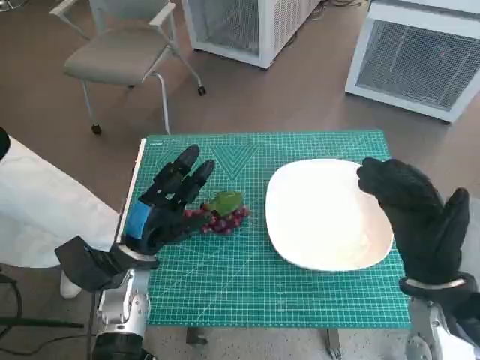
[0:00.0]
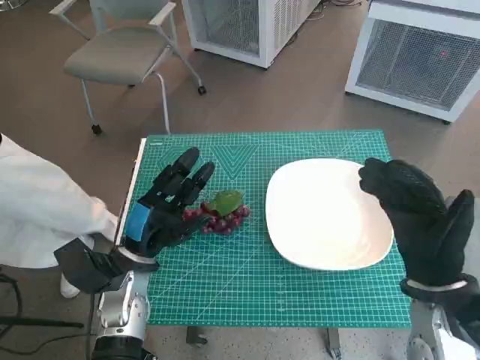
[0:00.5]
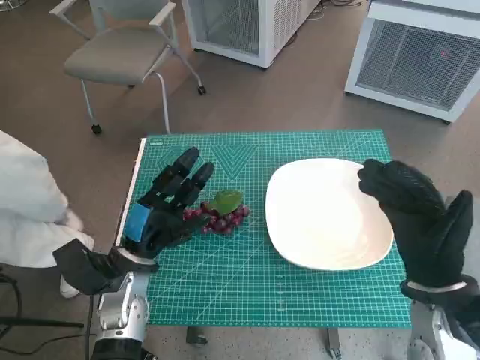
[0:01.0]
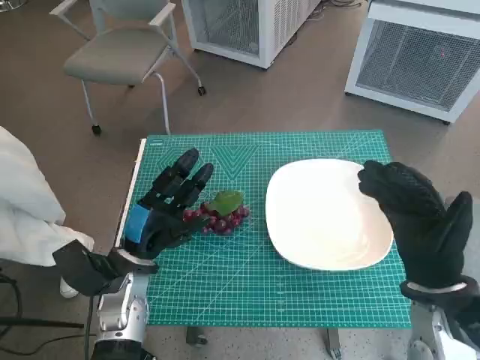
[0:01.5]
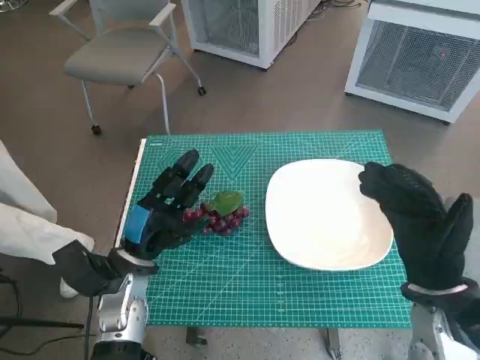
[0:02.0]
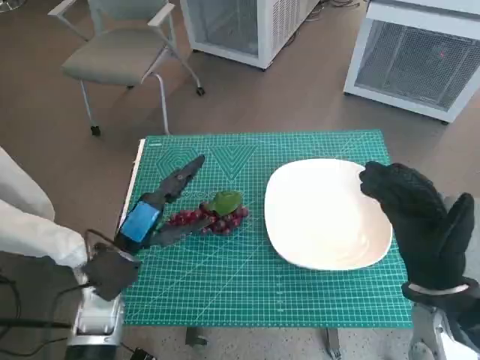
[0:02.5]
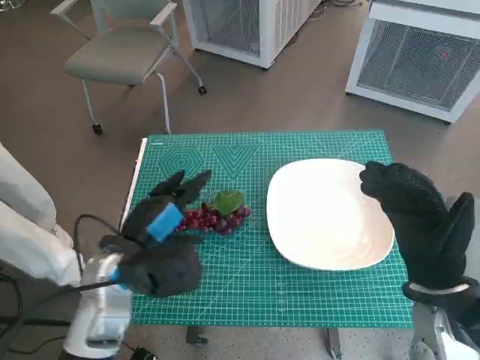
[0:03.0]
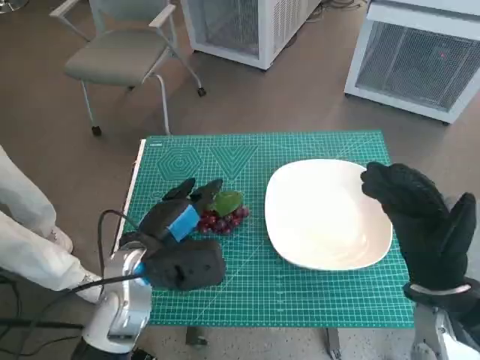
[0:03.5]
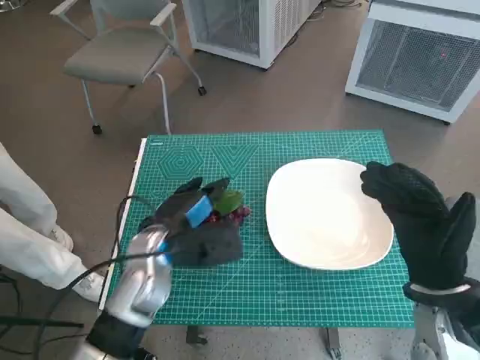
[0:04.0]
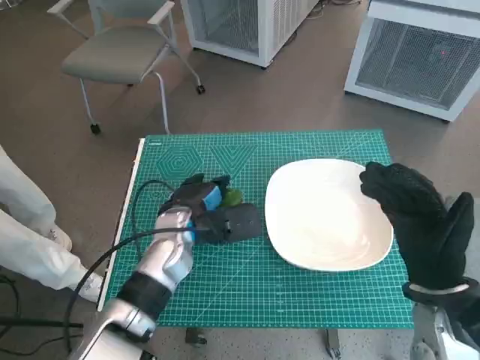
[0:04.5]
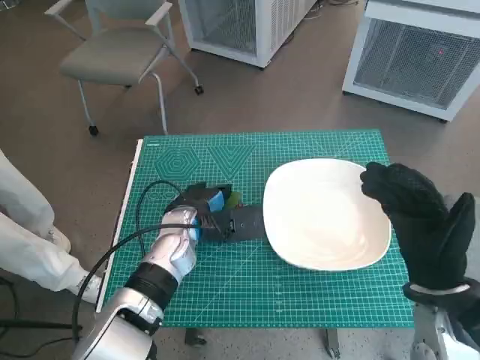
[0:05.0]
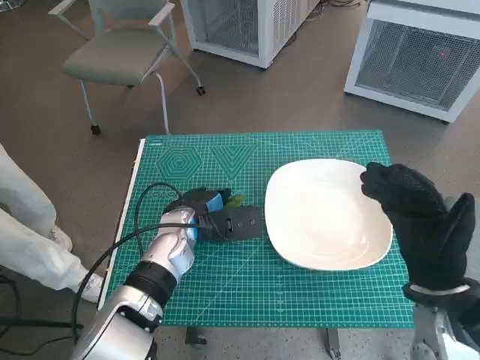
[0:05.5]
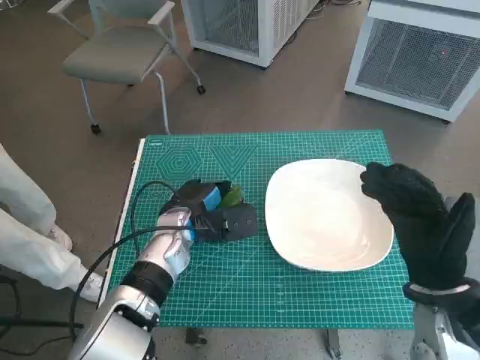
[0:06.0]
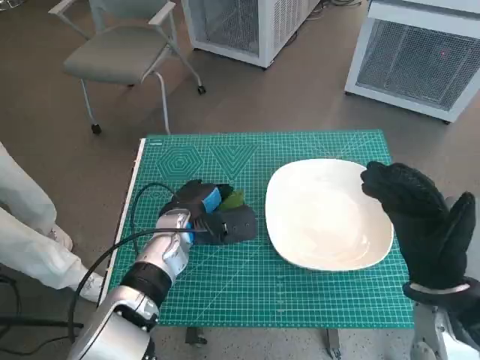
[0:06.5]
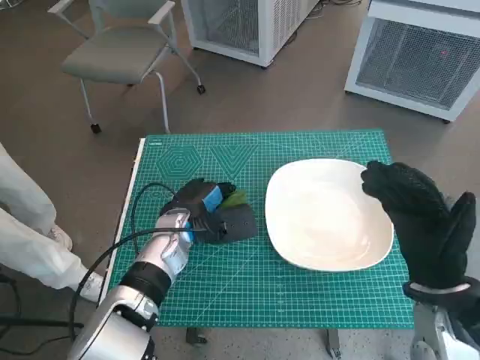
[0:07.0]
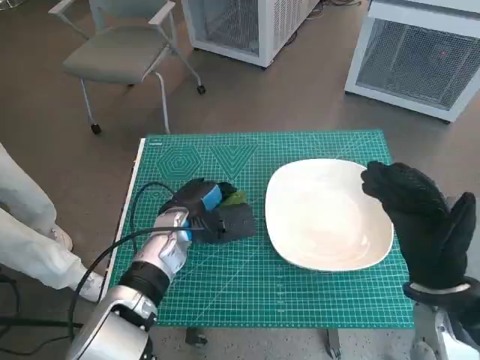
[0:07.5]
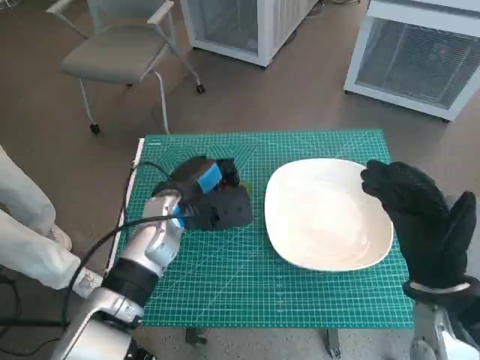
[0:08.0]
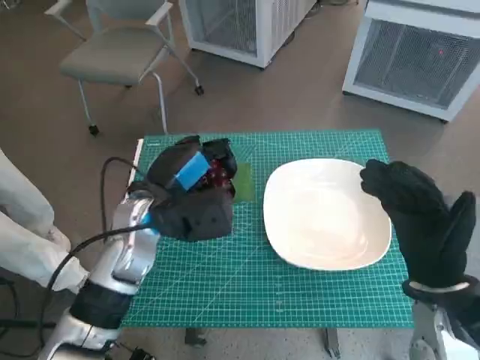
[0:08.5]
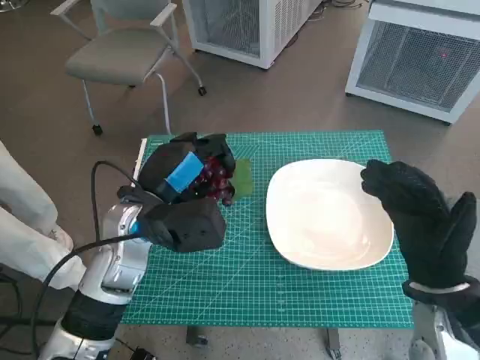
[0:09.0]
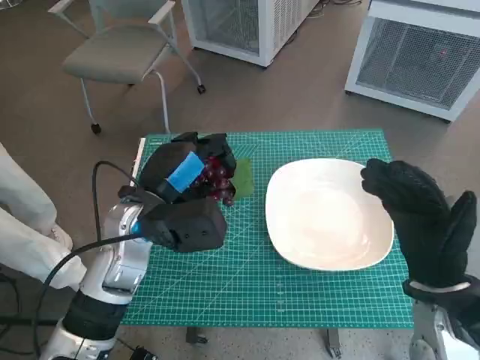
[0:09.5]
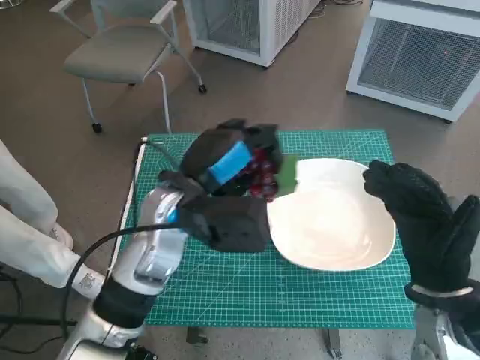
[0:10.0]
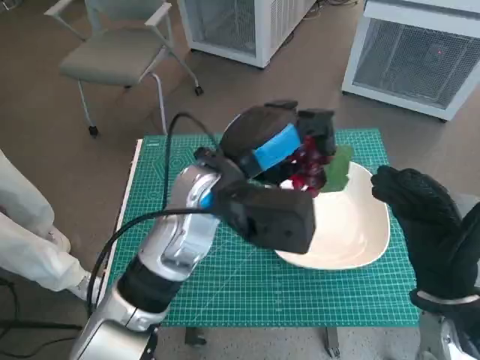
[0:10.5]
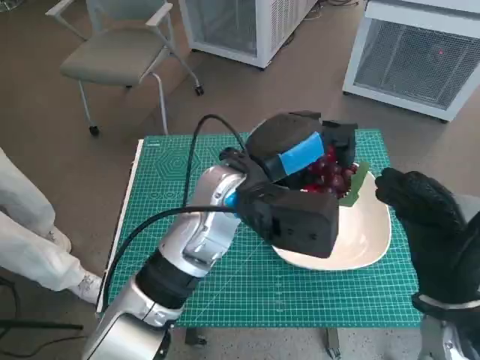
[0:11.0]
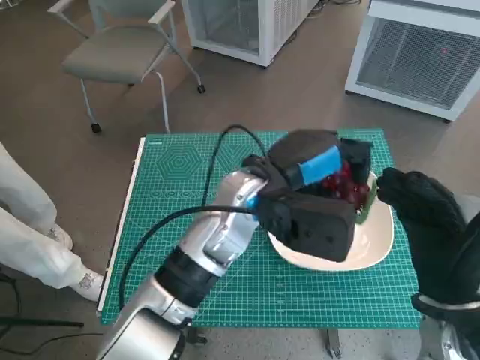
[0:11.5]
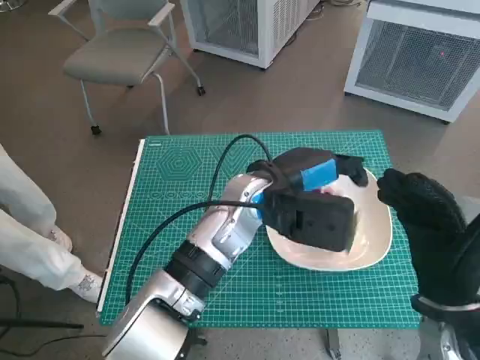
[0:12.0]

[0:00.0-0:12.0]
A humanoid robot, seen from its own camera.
Task of the whole recording: Pick up the grapes and put them on the plate.
Step, 0:00.0 to 0:07.0: Grasp the grapes with left hand.
0:02.0 to 0:04.0: The left hand is displaced to the right by roughly 5 cm.
0:04.0 to 0:06.0: The left hand shifts approximately 5 cm forward.
0:06.0 to 0:08.0: There are only small adjustments of the hands.
0:08.0 to 0:10.0: The left hand travels upward by about 5 cm.
0:10.0 to 0:12.0: The left hand moves to the right, about 10 cm.

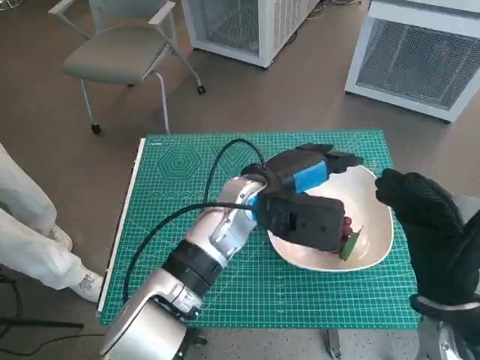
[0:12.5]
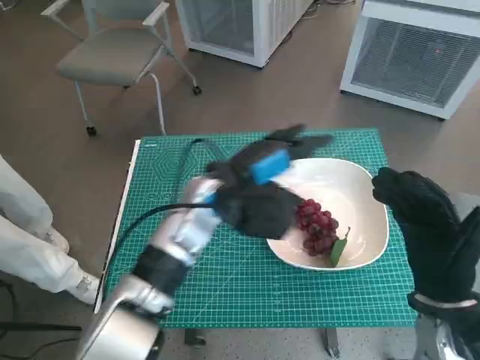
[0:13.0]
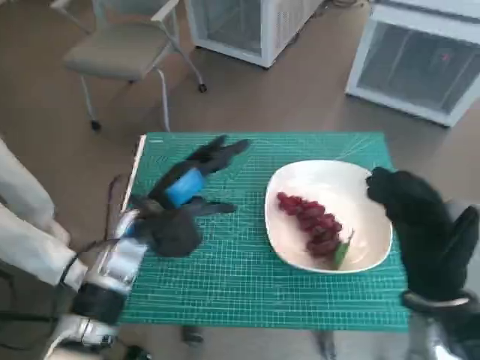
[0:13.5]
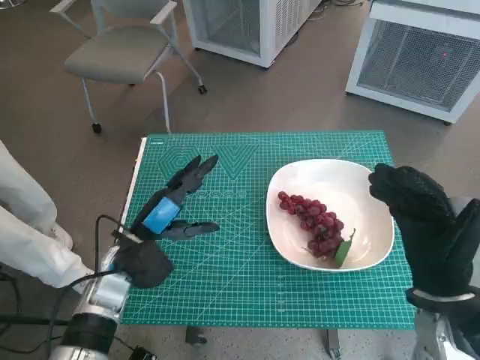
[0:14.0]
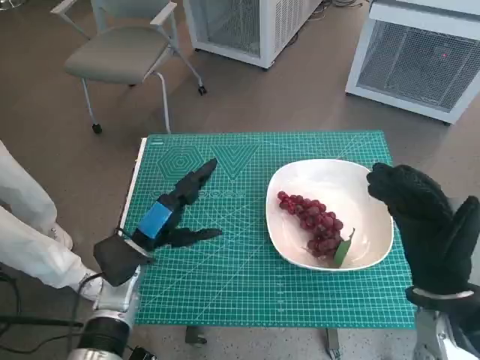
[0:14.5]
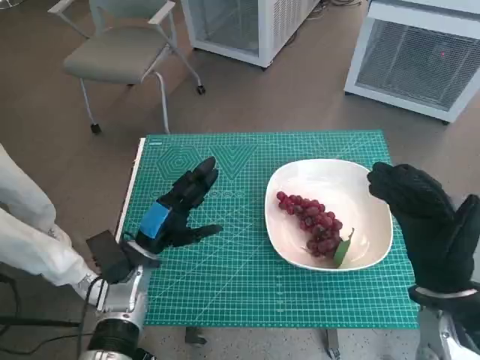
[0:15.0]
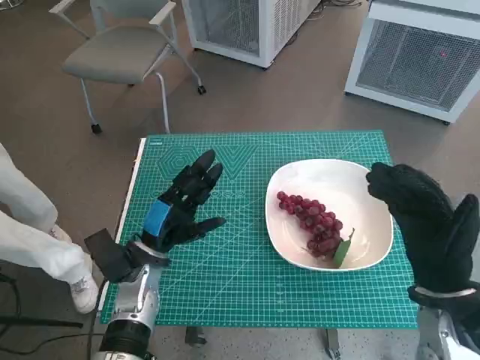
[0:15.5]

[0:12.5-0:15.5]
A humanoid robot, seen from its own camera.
Task of the whole recording: Pick up the grapes and put them on the plate.
0:12.5 to 0:14.0: The left hand is displaced to the left and downward by some 20 cm.
